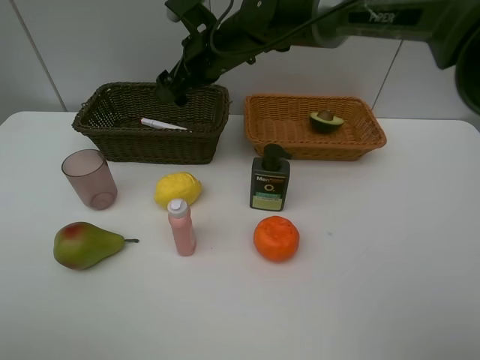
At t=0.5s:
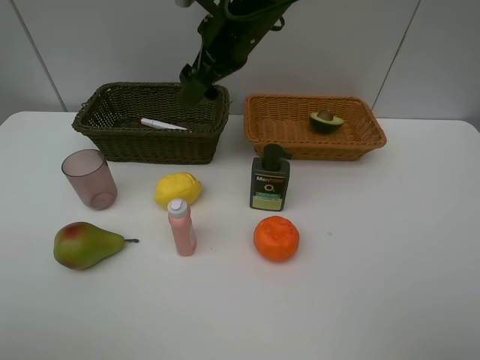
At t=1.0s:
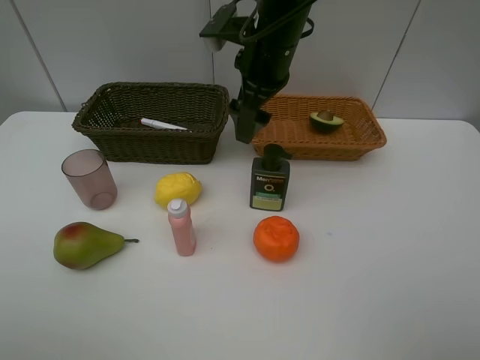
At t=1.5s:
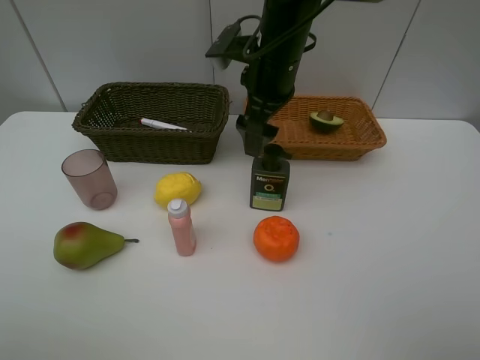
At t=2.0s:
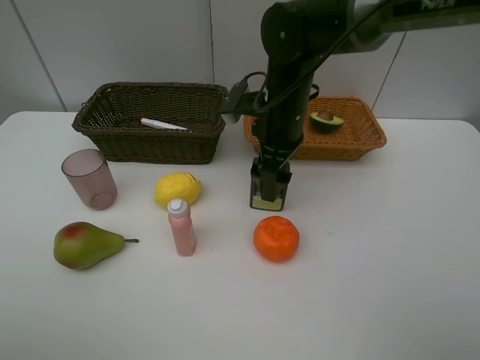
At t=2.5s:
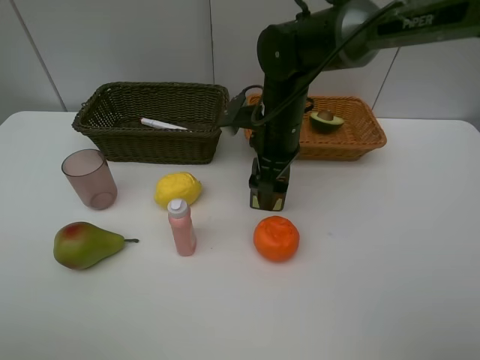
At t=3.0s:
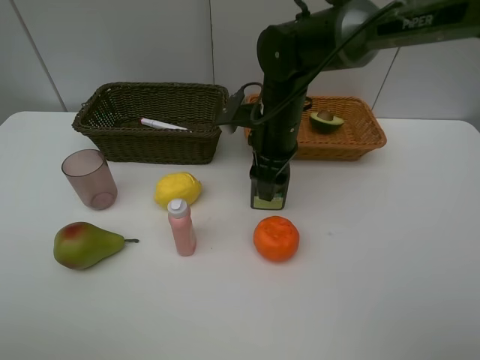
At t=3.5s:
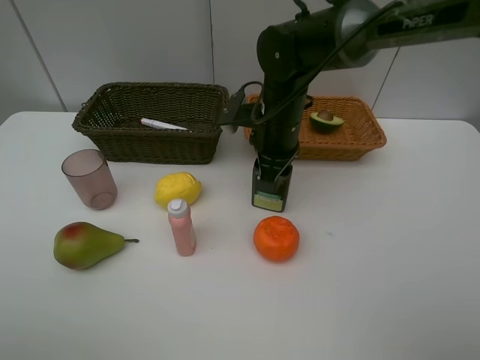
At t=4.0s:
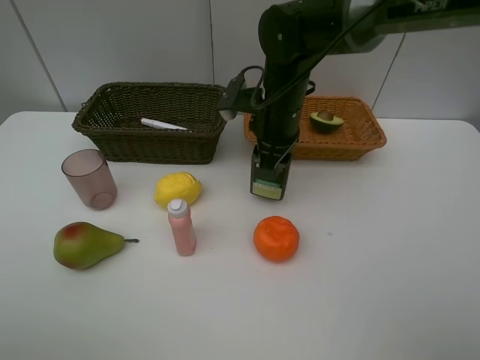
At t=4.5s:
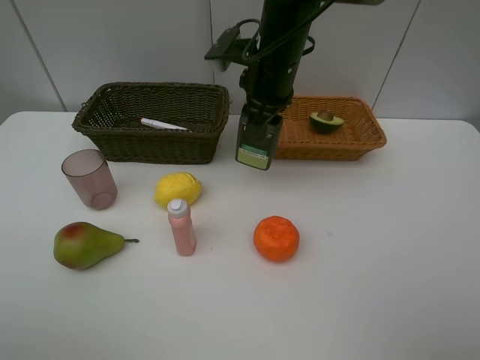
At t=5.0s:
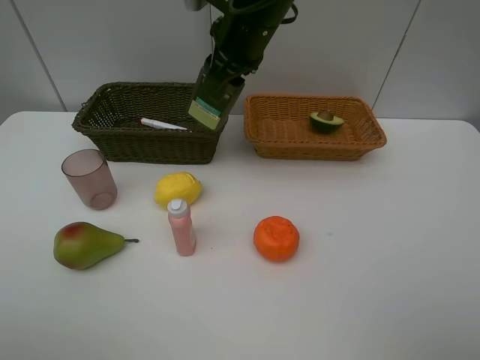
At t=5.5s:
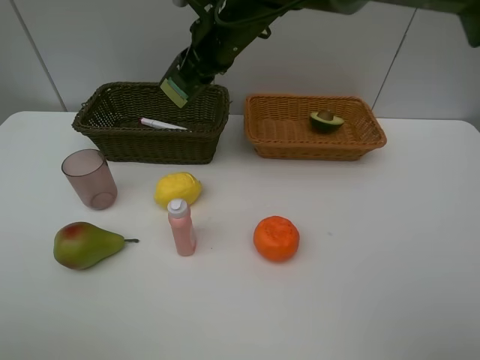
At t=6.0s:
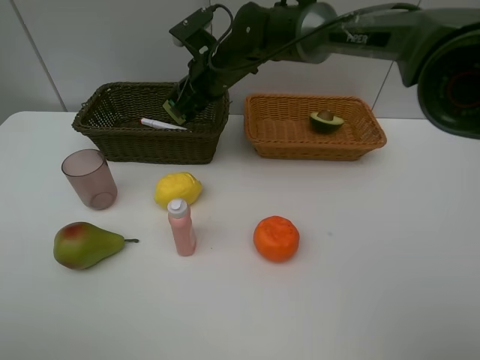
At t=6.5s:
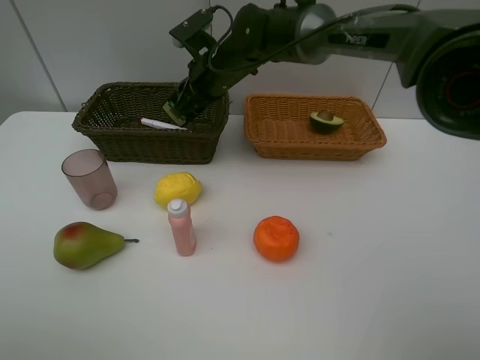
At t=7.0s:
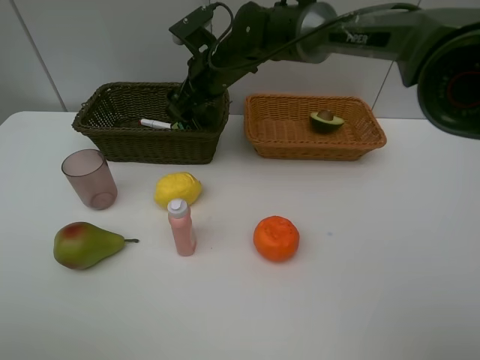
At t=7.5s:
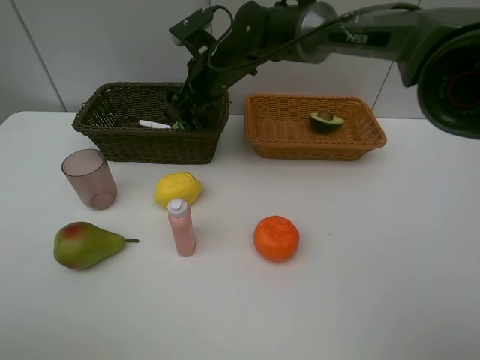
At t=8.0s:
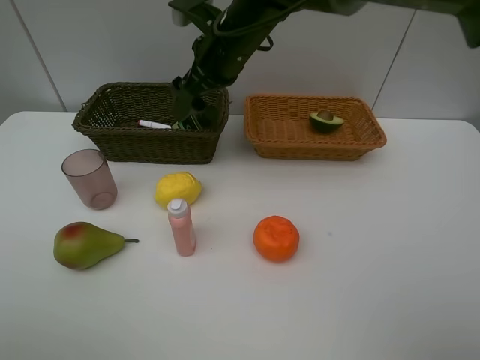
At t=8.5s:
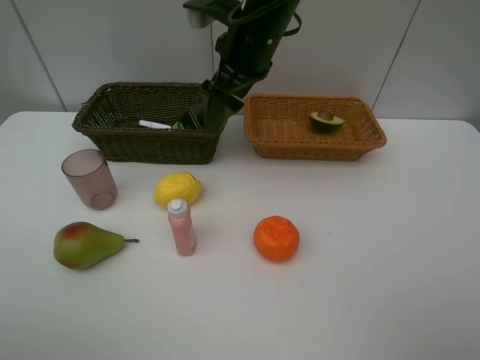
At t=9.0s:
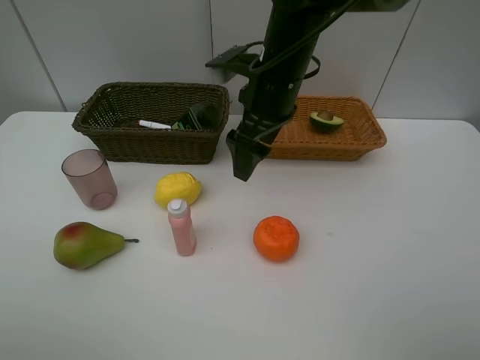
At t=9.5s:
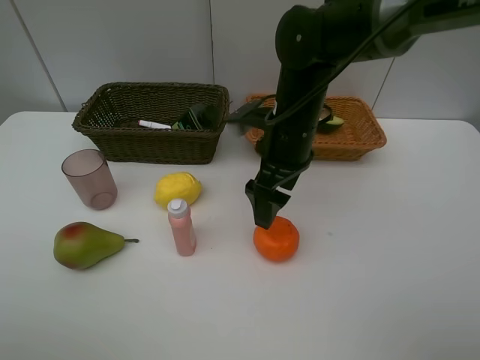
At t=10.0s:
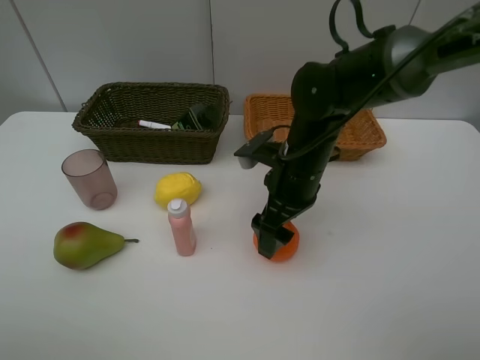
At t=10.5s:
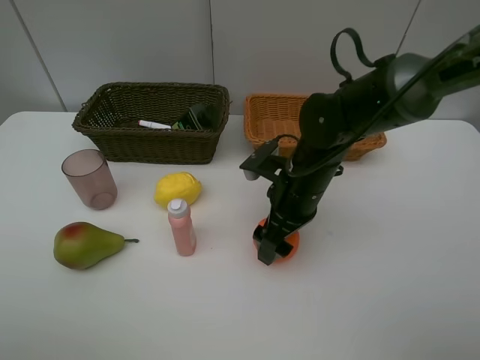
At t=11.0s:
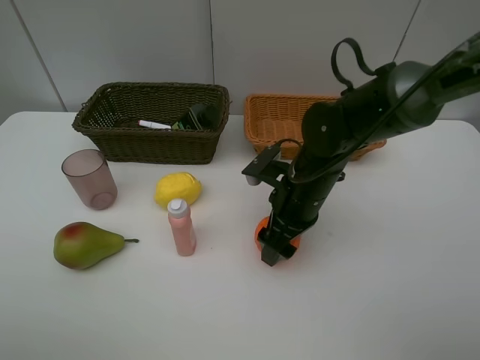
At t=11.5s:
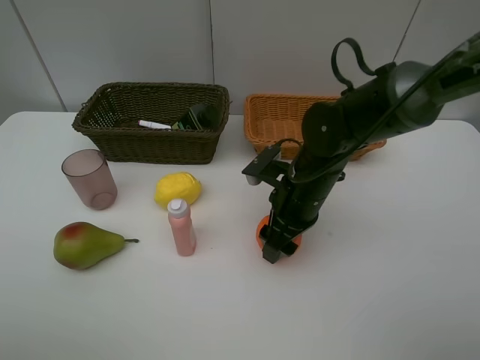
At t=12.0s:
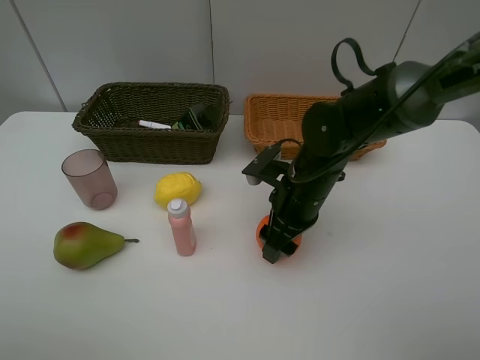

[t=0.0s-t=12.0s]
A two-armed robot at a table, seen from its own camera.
Task of the whole recording: Place multiple objects separately in different baskets.
Step, t=0.0s to t=4.0s: Pick up the hard facial cleanser with right gripper.
Step, t=4.5s to t=7.5s: Place the hard facial cleanser in the dark basket with right gripper.
t=0.0s to t=2.0s: The right gripper heads to the right and backward, covering approximately 10 cm.
t=2.0s to t=4.0s: The right gripper closes its fingers.
t=4.0s to t=6.0s: The right gripper heads to the left and forward, covering about 10 cm, and moves approximately 10 cm upward and comes back.
t=6.0s to t=8.0s: The right gripper travels upward by roughly 5 cm, and opens its fingers.
t=8.0s to t=10.0s: The right gripper goes some 20 cm downward, backward and to the right.
t=10.0s to t=12.0s: There are only small adjustments of the grippers.

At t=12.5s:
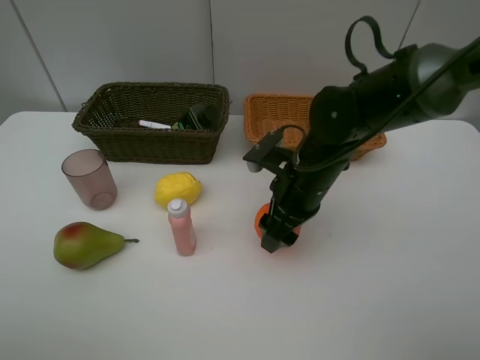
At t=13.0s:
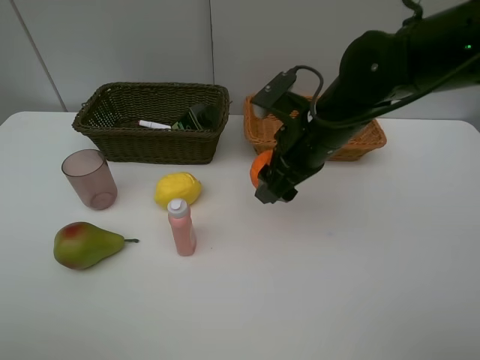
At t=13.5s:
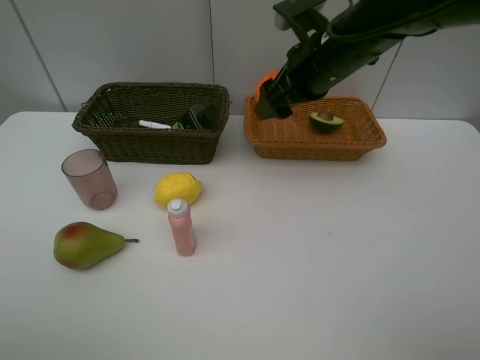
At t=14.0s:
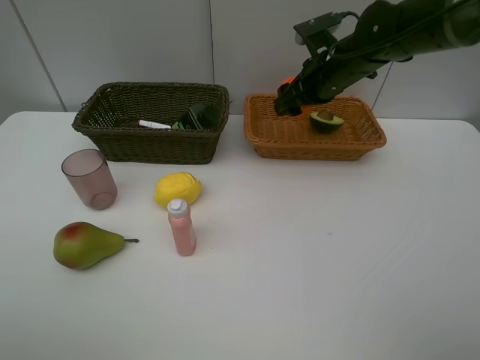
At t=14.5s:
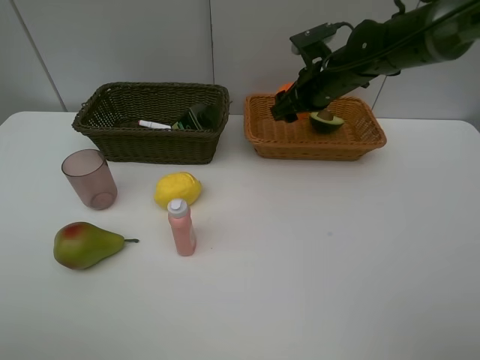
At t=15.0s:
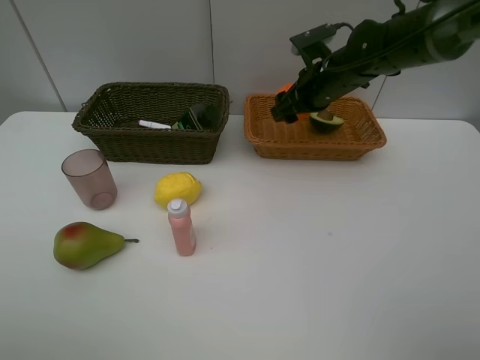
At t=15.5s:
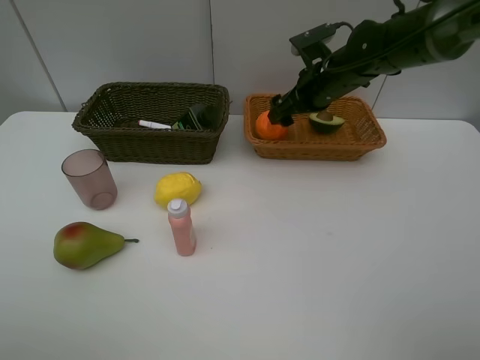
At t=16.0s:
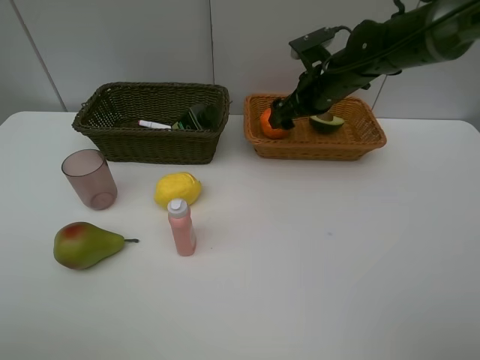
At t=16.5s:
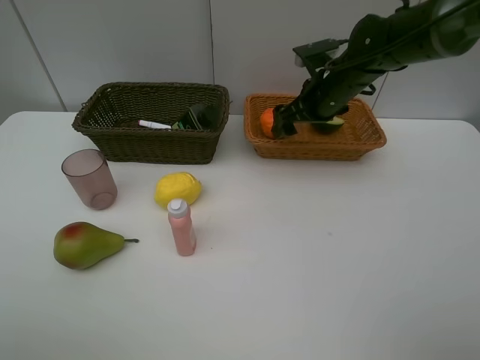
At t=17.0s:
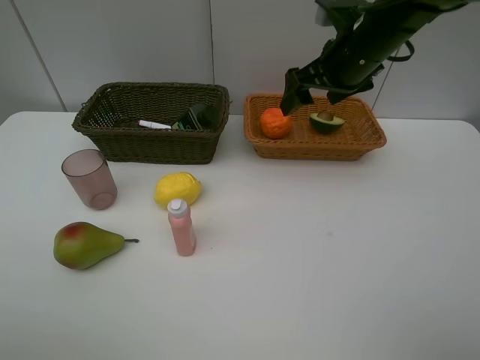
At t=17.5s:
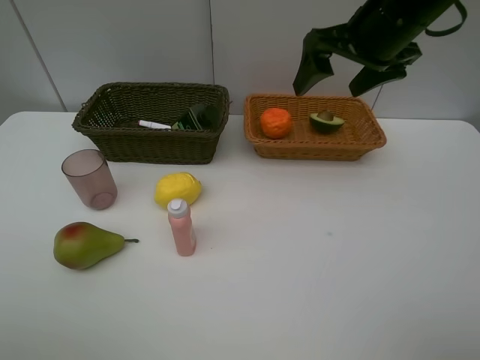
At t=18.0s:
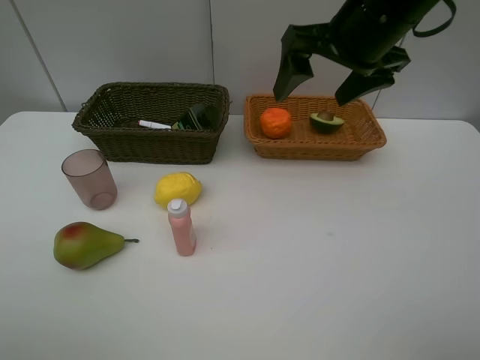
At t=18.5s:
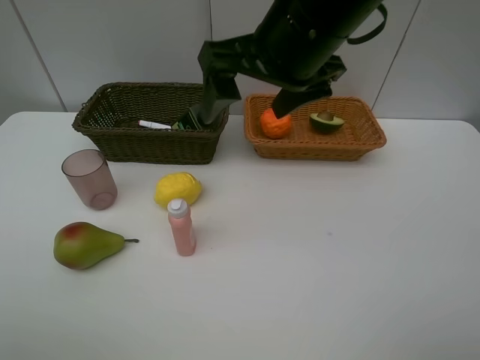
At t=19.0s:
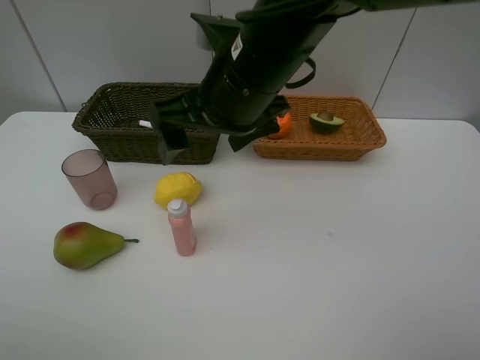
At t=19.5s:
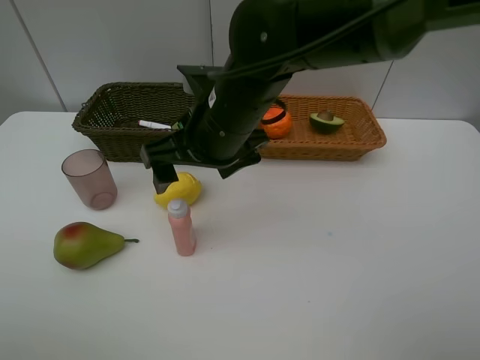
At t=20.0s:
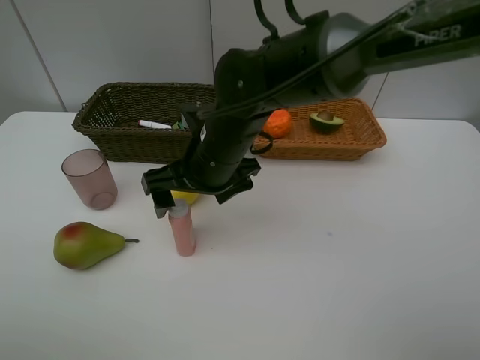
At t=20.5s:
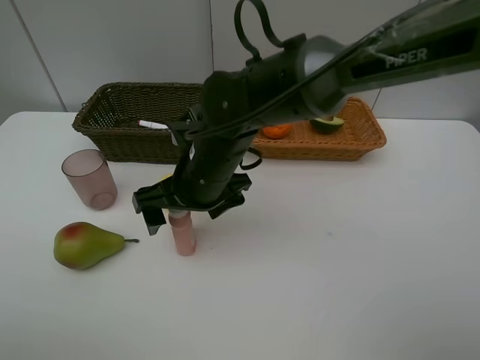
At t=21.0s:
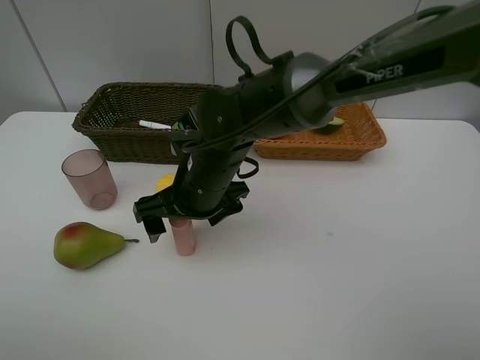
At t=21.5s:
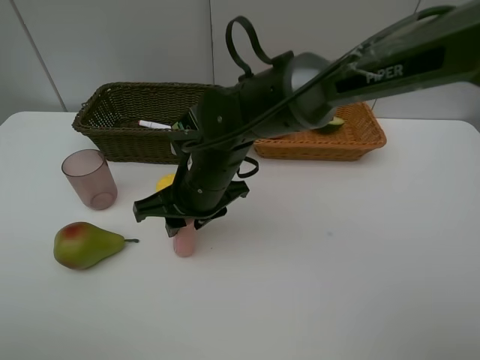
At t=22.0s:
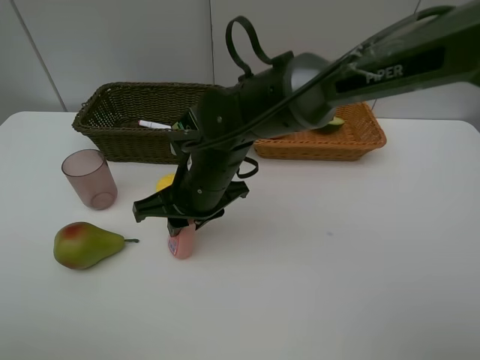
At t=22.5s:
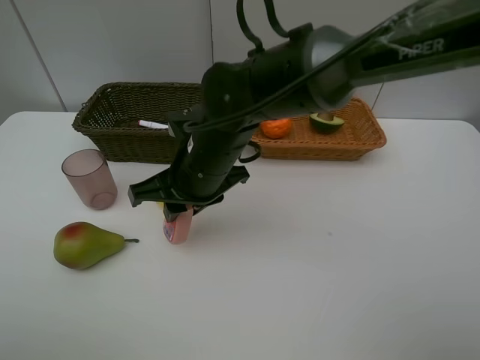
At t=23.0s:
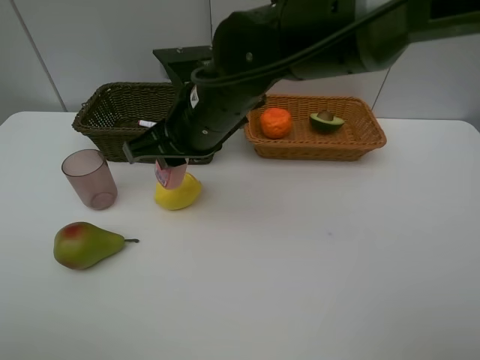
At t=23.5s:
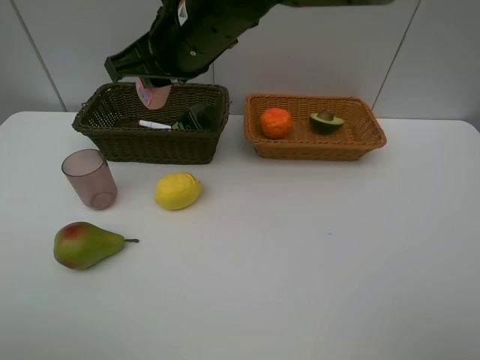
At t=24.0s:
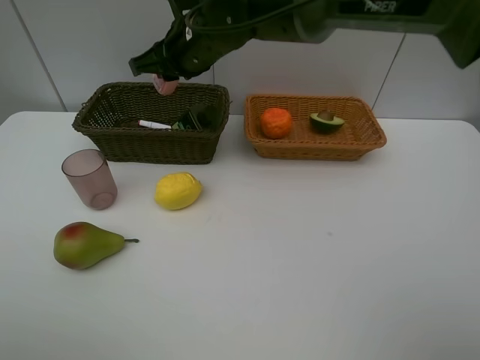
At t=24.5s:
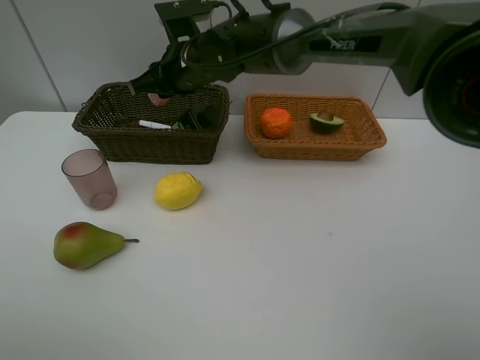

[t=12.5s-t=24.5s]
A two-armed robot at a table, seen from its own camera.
Task of the whole recording: Place multiple objects separately in different baskets.
Step, t=13.0s to t=16.0s: Place the orange in the light basket with right gripper.
Step, t=16.5s to t=22.5s: Pick up the laundry detergent with right gripper.
t=12.5s to t=14.5s: The right gripper moves forward, approximately 15 cm.
t=14.5s to t=16.5s: The grippers move only a little.
t=16.5s to t=18.5s: The right gripper goes about 20 cm backward, upward and to the left.
t=18.5s to t=20.5s: The right gripper shifts about 20 cm downward and to the left.
t=20.5s to t=22.5s: The right gripper closes its fingers.
t=22.5s to t=24.5s: The right gripper goes approximately 15 cm forward.

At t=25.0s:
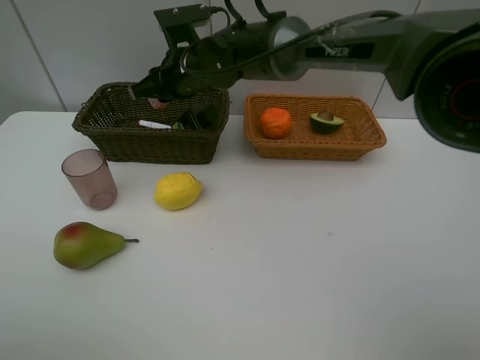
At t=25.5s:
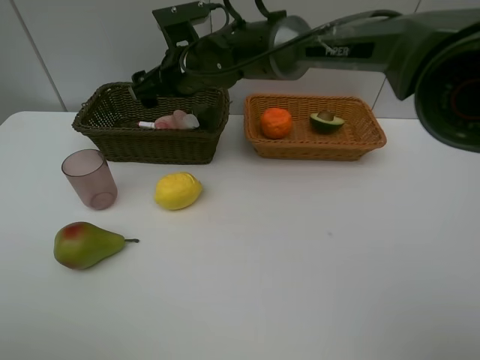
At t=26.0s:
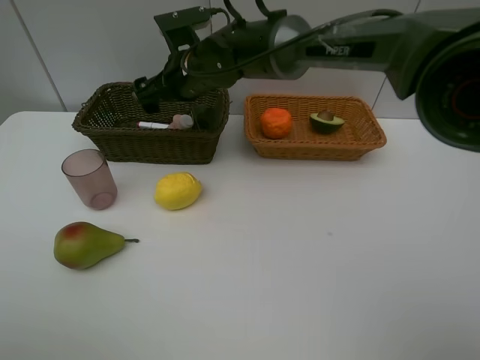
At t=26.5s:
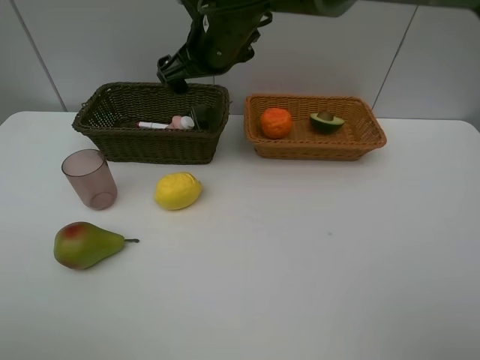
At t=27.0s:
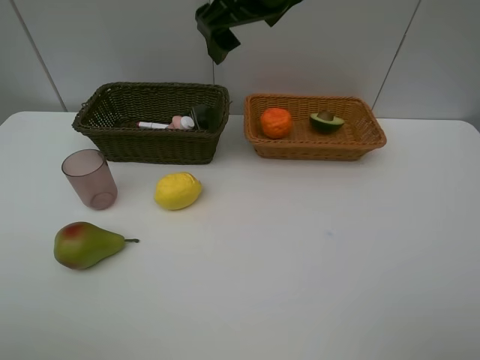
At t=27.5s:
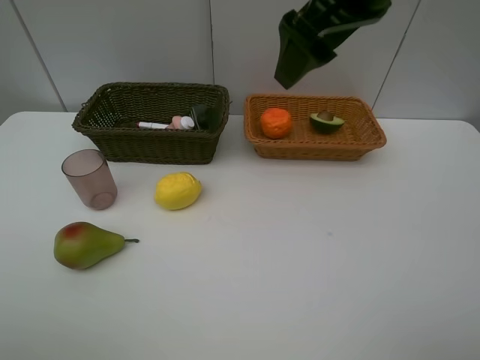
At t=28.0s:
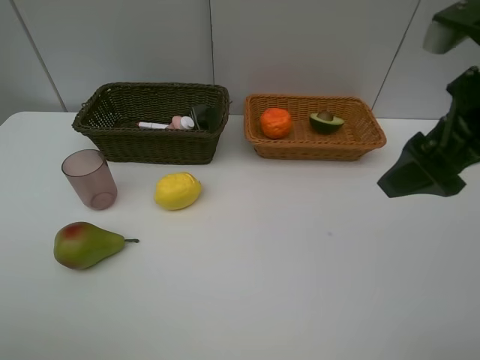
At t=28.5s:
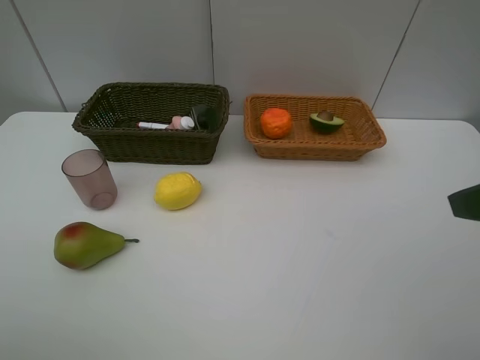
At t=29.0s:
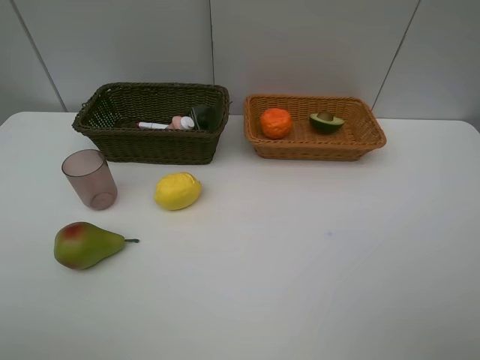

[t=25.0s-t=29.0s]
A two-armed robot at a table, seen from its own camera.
Task of the whole recording: Place multiple objects separately in different baskets.
t=25.0s to t=27.0s: The right gripper travels upward, to the right and backward by about 20 cm, and opens up.
t=27.0s to t=29.0s: The right gripper travels backward and to the right by about 40 cm.
